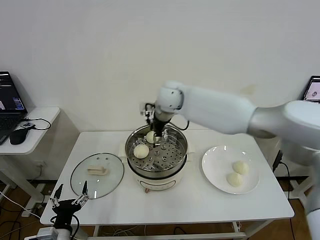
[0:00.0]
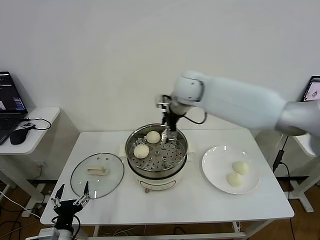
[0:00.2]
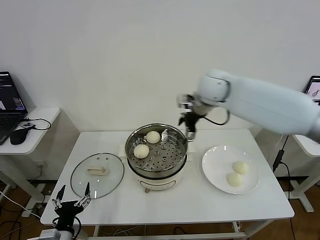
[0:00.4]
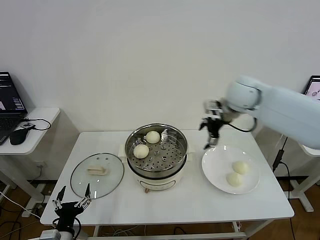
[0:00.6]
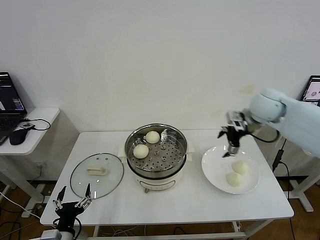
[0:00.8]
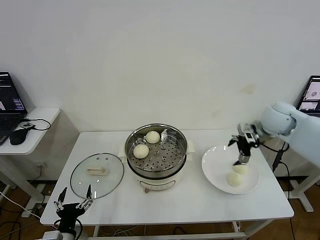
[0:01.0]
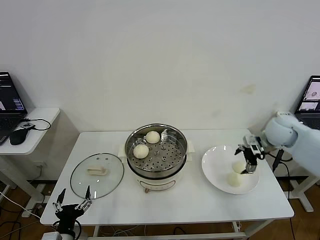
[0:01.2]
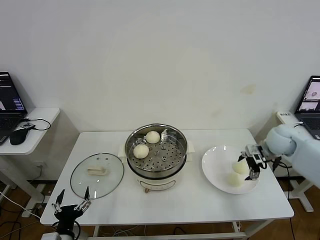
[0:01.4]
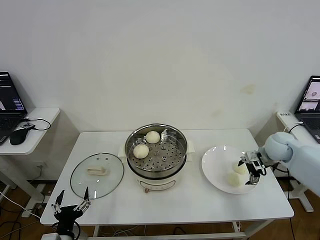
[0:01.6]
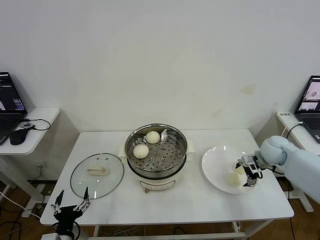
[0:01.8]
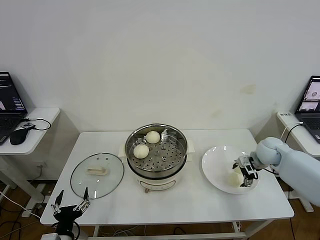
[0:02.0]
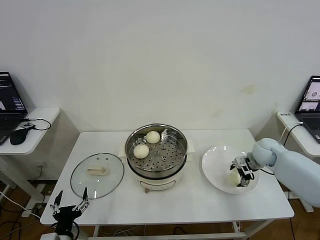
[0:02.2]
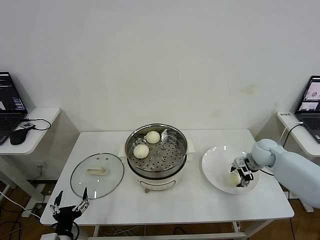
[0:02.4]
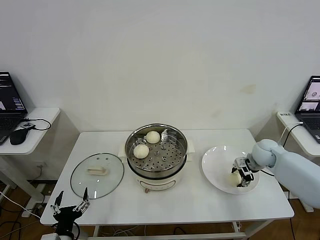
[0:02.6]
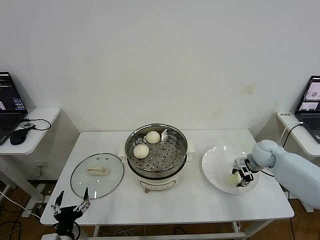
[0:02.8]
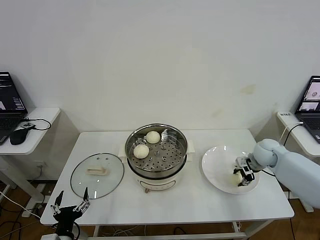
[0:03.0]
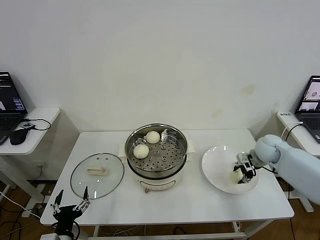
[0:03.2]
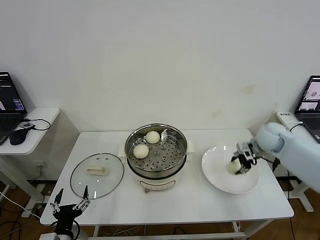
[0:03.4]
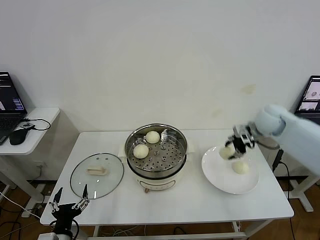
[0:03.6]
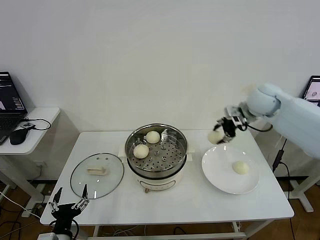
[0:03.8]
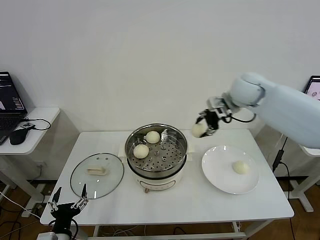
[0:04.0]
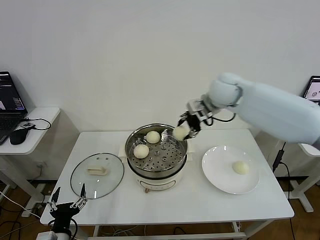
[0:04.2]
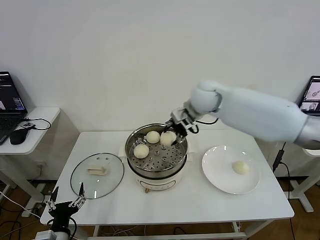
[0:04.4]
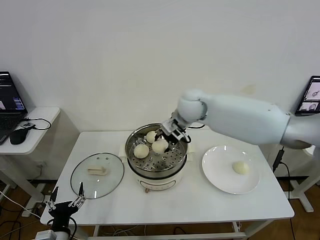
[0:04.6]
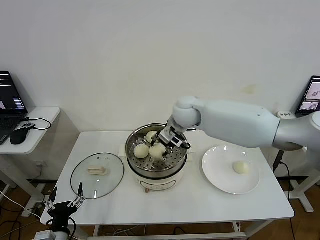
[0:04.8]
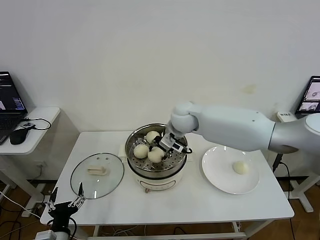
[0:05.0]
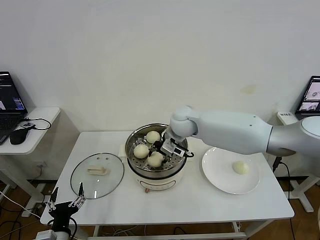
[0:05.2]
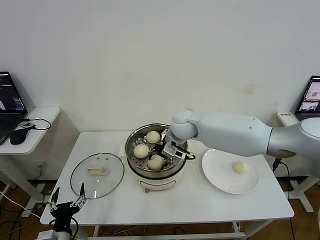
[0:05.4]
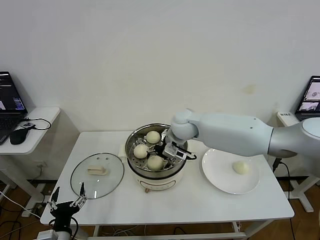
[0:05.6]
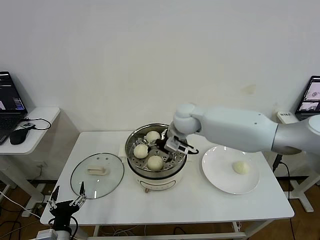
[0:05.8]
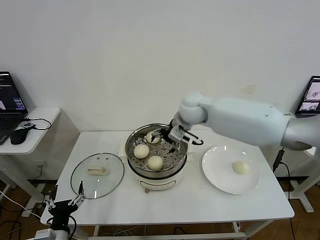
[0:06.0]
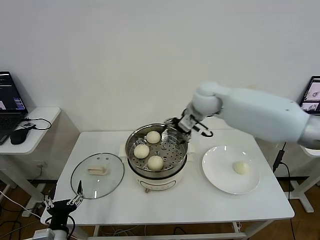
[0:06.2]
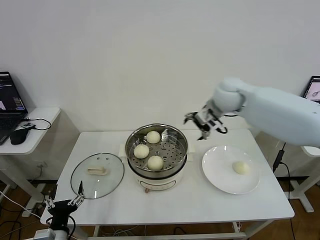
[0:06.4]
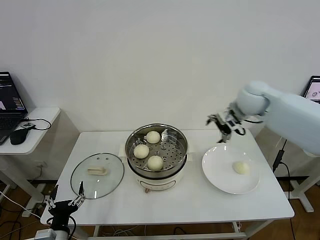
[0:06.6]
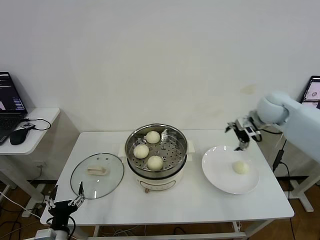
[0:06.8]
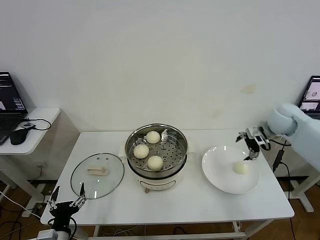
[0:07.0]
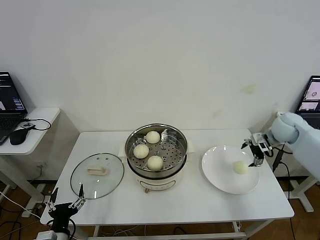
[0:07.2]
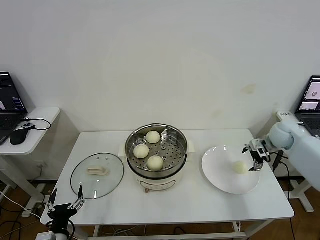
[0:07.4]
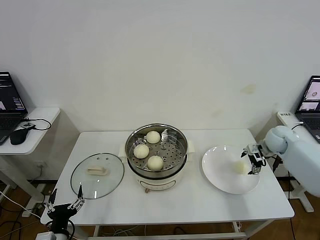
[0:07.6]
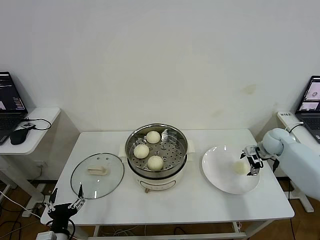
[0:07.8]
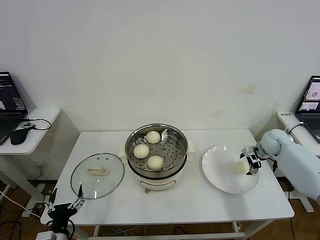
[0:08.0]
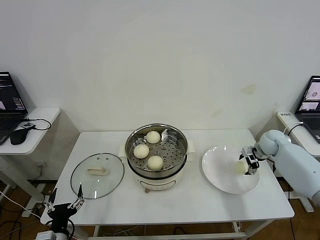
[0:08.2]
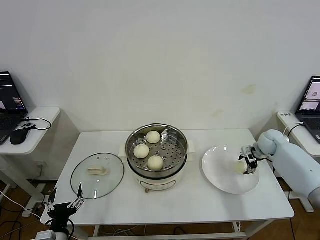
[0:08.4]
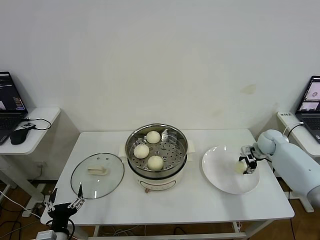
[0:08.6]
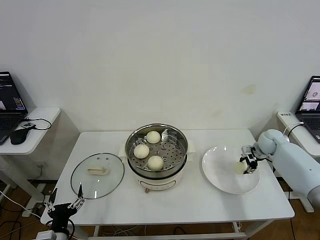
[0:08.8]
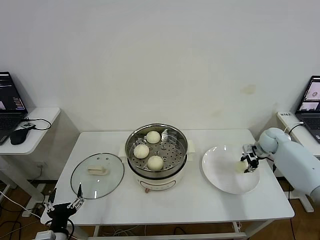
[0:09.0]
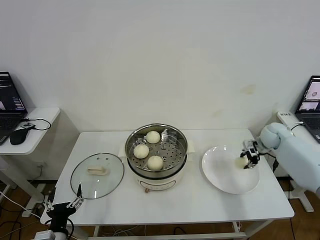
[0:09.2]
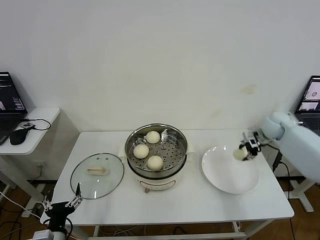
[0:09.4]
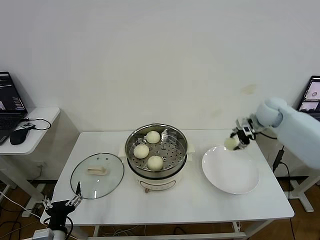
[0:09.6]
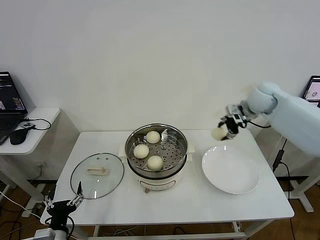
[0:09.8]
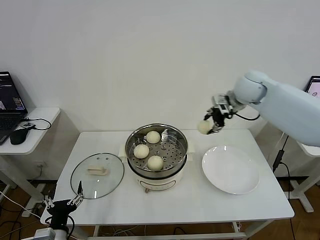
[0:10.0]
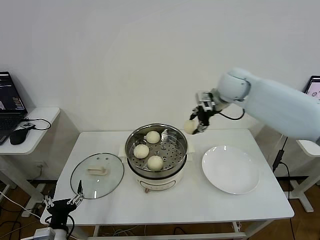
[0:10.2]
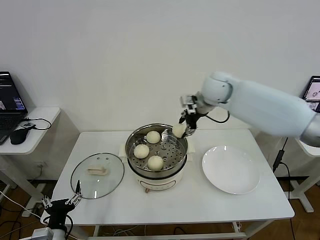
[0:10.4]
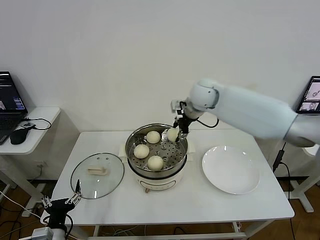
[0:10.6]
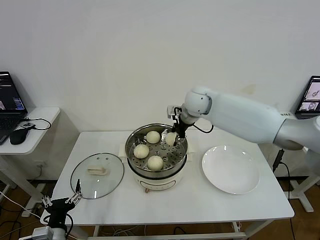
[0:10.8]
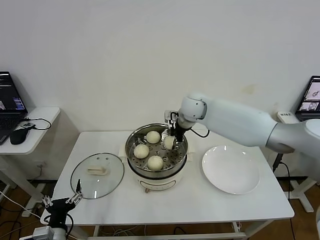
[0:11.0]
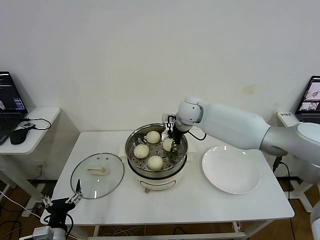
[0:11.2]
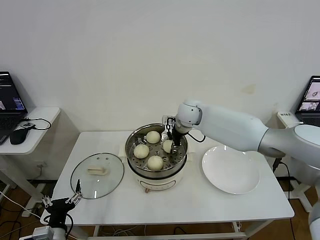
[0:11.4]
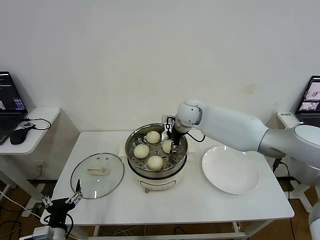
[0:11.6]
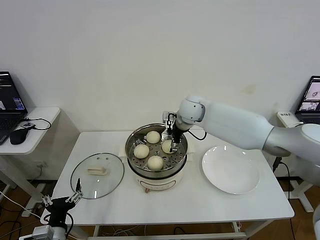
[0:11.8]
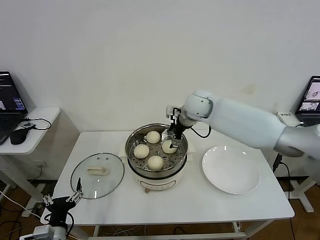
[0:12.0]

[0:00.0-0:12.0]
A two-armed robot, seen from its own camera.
Step, 0:00.0 to 0:02.8: Grasp the baozi in the plate with right gripper.
Step, 0:03.2 to 0:05.4: Place the baozi on the steamer with right gripper.
Step, 0:05.8 to 0:08.8: Grasp the baozi in the plate with right gripper.
Step, 0:09.0 to 0:11.6: Place the baozi on the steamer with right gripper.
0:00.0 to 0:01.6: The right gripper shifts some 40 cm to the right and downward.
0:01.6 to 0:03.0: The right gripper closes.
0:03.0 to 0:04.4: The right gripper travels to the left and upward by some 35 cm.
0:04.4 to 0:06.0: The right gripper goes downward and returns, some 10 cm each way, and opens.
0:06.0 to 0:07.6: The right gripper shifts roughly 35 cm to the right and downward.
0:07.6 to 0:09.0: The right gripper closes.
0:09.0 to 0:10.4: The right gripper moves to the left and upward, about 35 cm.
0:10.4 to 0:12.0: The right gripper is displaced downward by about 5 cm, and opens.

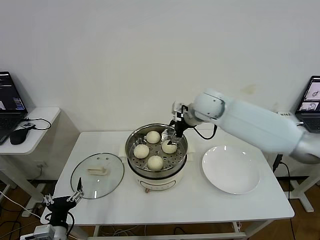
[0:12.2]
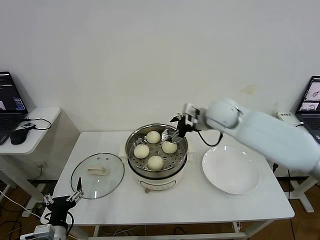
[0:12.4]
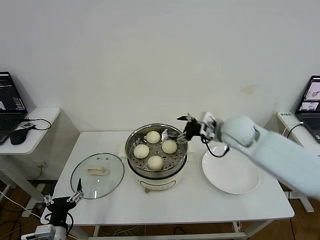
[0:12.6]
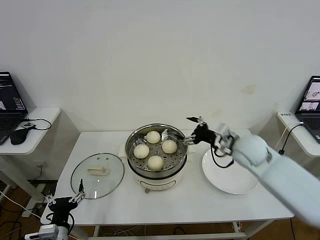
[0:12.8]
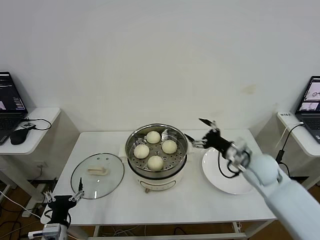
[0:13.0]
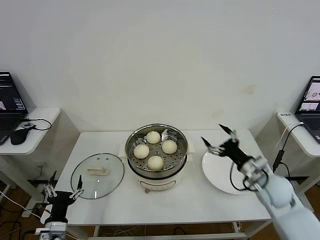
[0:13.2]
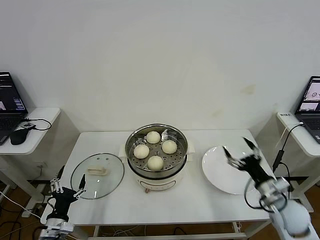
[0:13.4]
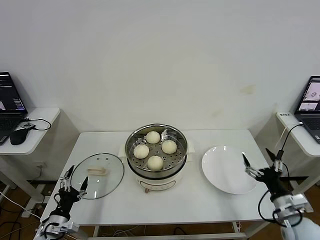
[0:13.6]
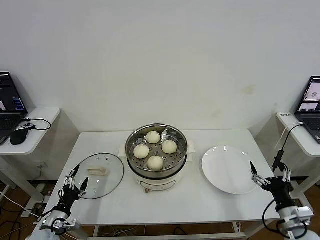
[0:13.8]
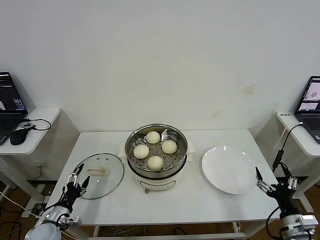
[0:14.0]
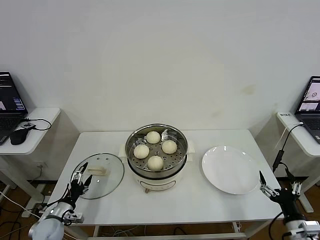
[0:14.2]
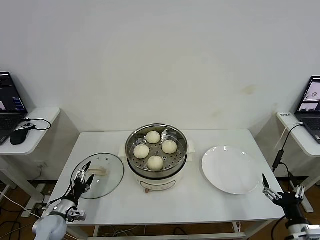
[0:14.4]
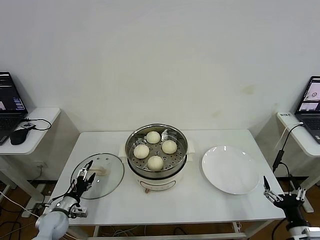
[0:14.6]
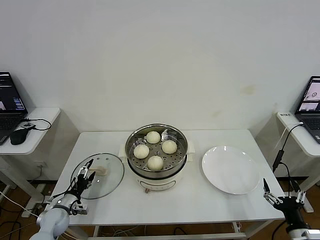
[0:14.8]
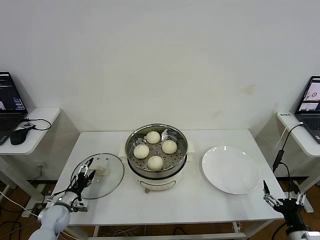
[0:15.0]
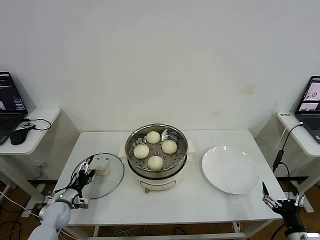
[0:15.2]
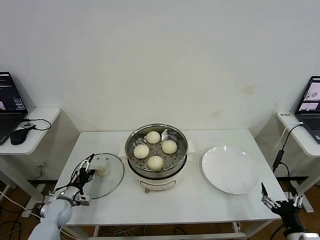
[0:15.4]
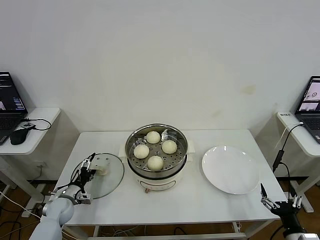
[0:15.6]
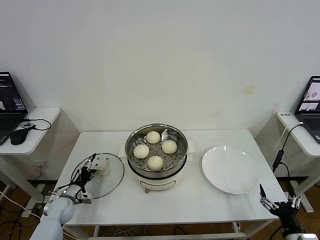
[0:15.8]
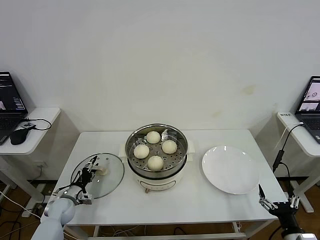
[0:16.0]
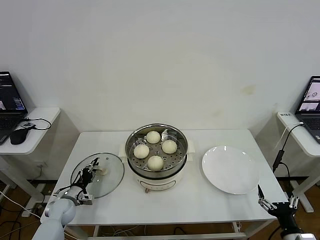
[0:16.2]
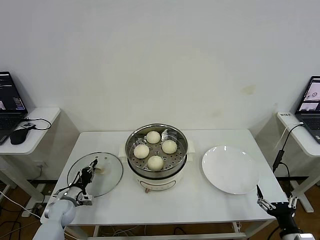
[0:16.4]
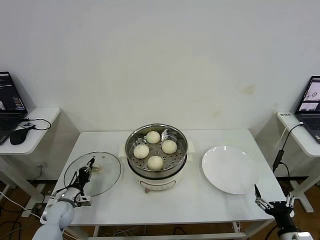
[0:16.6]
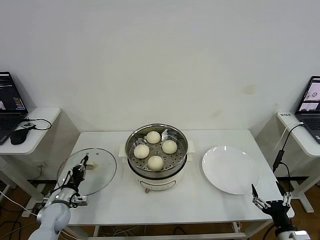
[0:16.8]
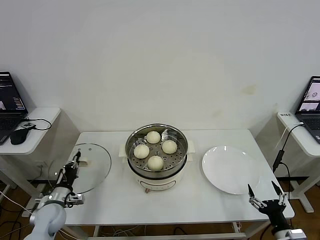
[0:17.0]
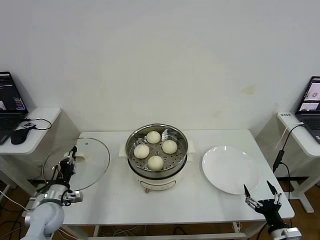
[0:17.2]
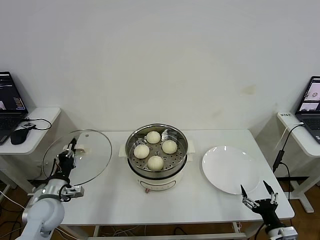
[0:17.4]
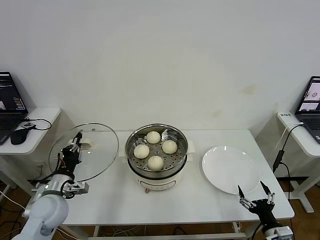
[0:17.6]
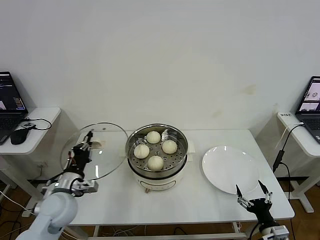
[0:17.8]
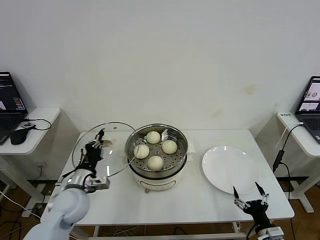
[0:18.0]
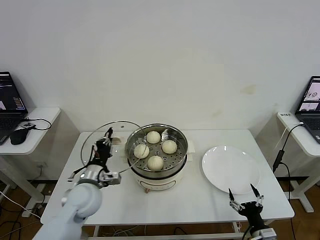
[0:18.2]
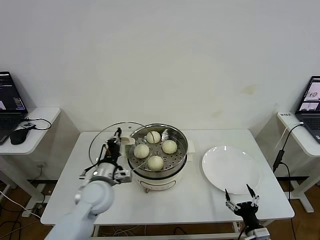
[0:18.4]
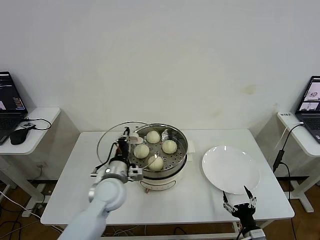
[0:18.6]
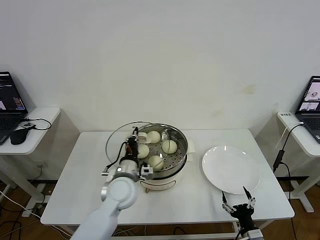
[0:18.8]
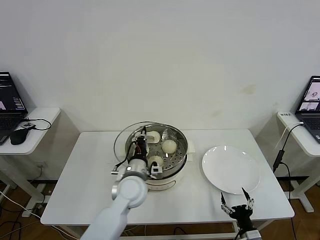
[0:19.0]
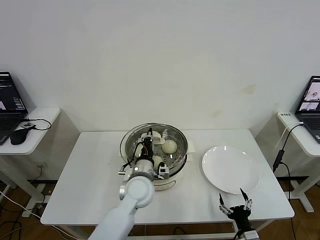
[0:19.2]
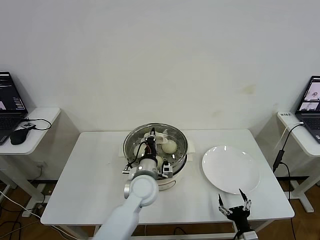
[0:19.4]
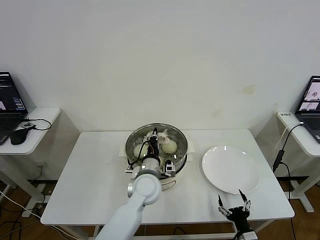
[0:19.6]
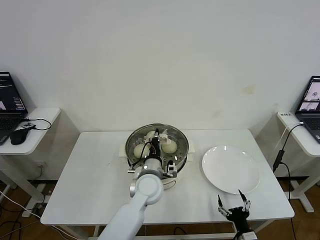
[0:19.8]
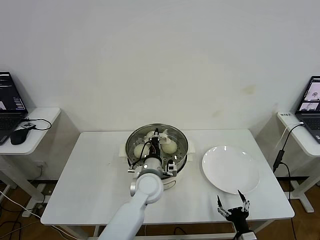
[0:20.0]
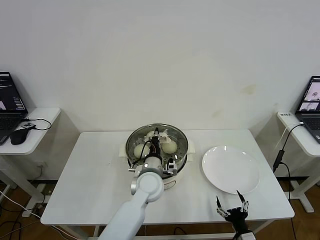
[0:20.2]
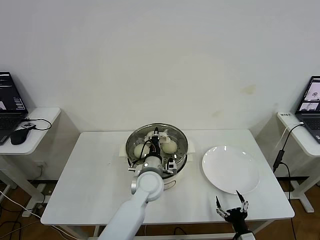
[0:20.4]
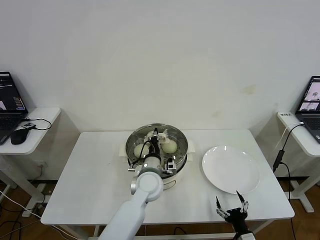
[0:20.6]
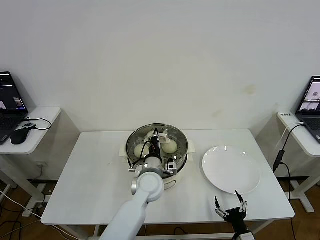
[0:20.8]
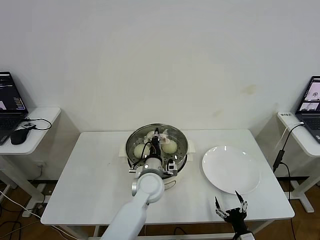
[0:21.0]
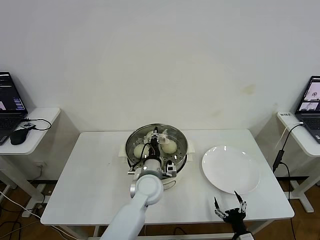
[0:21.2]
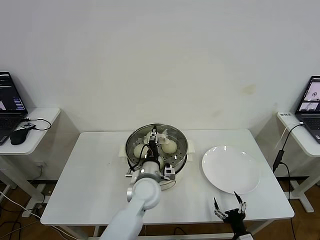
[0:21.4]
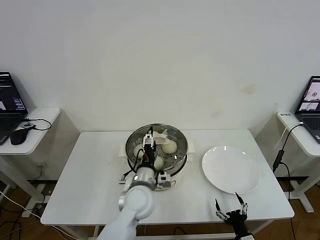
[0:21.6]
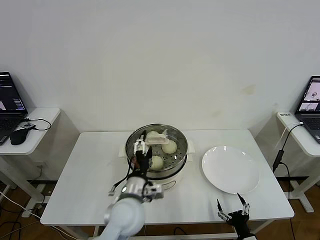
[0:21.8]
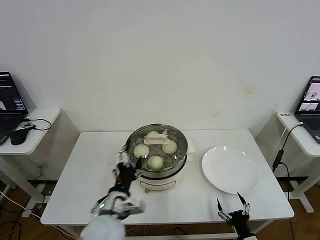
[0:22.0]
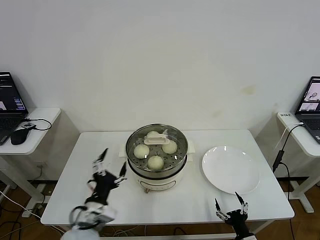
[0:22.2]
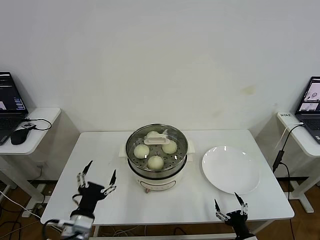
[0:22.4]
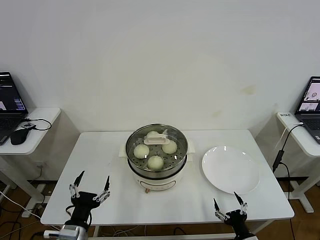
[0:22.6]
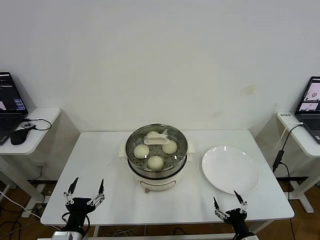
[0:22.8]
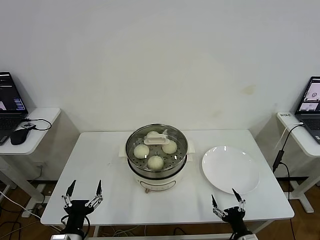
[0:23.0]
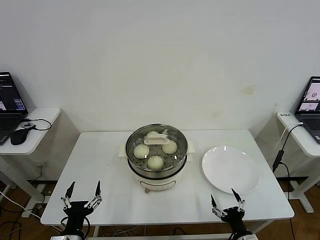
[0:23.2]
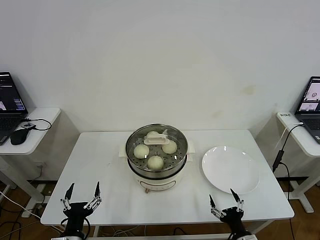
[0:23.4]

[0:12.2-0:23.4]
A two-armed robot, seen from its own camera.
Step, 0:12.2 to 0:16.6: Grasp the pot lid with left gripper.
Step, 0:16.8 to 0:21.2: Place the pot lid on the steamer with left gripper.
0:12.2 to 0:13.8: The left gripper goes approximately 10 cm to the left, forward and downward; the right gripper travels backward, to the right and downward by roughly 50 cm.
0:13.8 to 0:15.4: The left gripper goes approximately 10 cm forward, while the right gripper moves backward, about 5 cm.
0:15.4 to 0:17.0: The left gripper shifts by approximately 5 cm, and closes its fingers.
0:17.0 to 0:18.6: The left gripper goes roughly 25 cm to the right and upward. Meanwhile the right gripper is displaced to the left and downward by about 10 cm.
0:18.6 to 0:20.2: The left gripper moves to the right, about 15 cm.
0:20.2 to 0:21.8: The left gripper moves backward, approximately 10 cm, and opens.
0:21.8 to 0:23.4: The left gripper is displaced to the left, backward and downward by about 25 cm.
